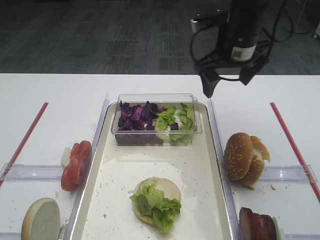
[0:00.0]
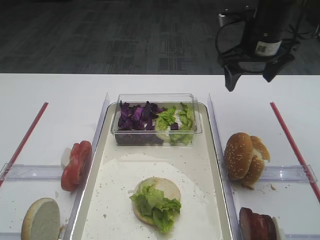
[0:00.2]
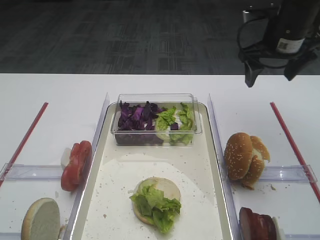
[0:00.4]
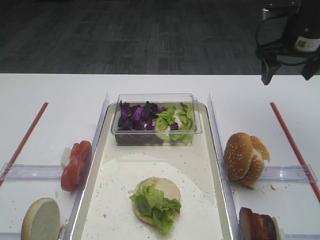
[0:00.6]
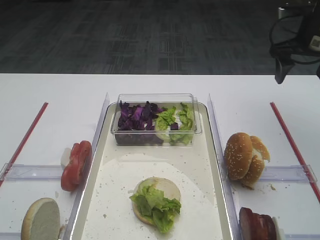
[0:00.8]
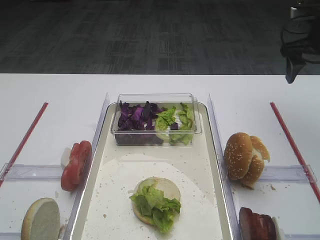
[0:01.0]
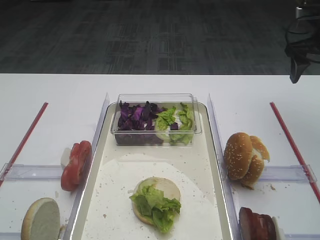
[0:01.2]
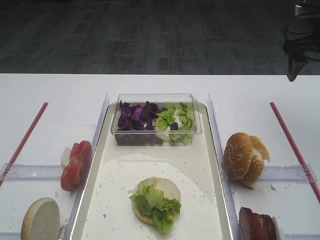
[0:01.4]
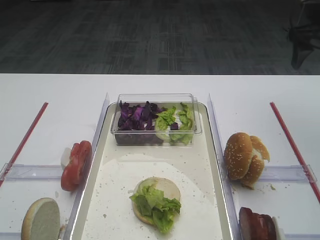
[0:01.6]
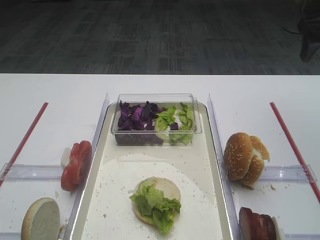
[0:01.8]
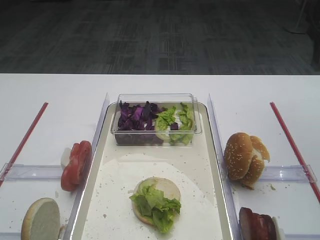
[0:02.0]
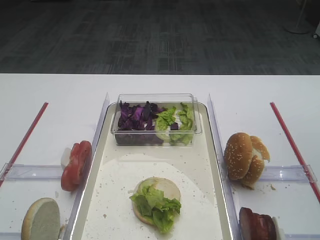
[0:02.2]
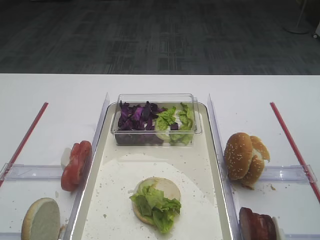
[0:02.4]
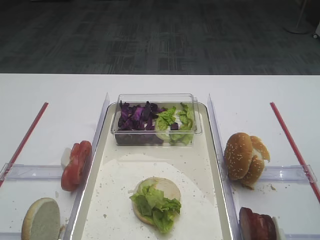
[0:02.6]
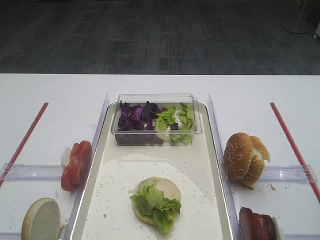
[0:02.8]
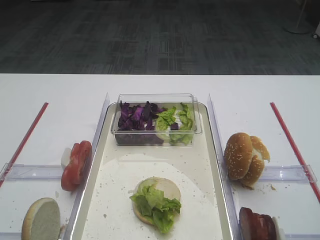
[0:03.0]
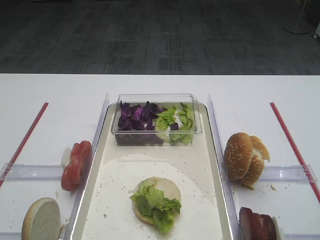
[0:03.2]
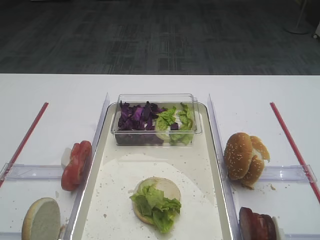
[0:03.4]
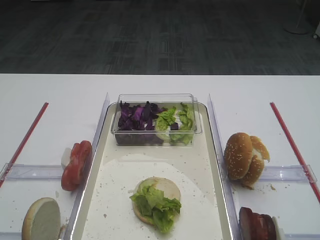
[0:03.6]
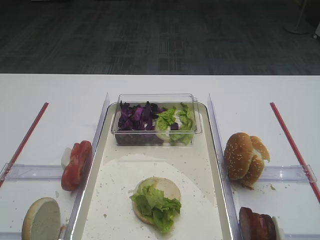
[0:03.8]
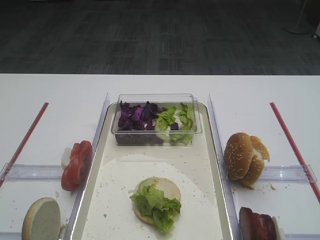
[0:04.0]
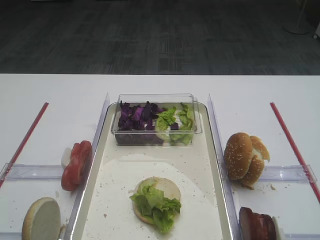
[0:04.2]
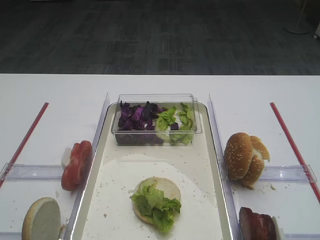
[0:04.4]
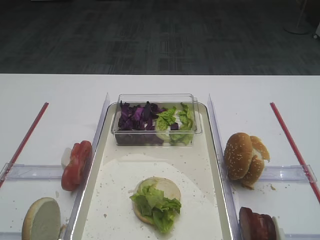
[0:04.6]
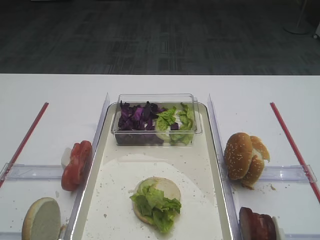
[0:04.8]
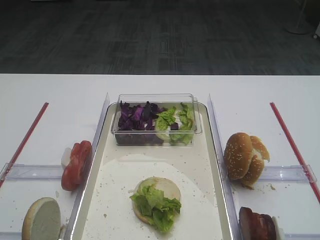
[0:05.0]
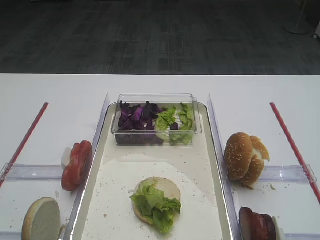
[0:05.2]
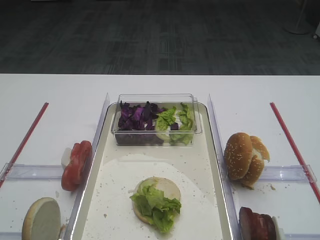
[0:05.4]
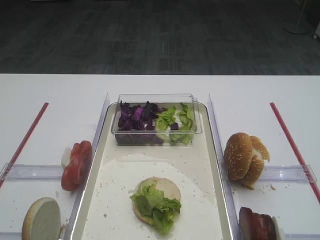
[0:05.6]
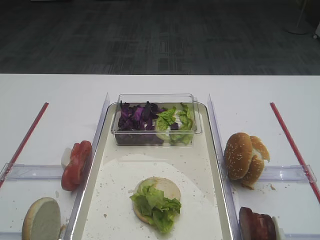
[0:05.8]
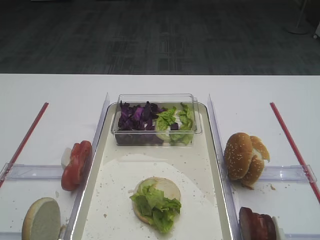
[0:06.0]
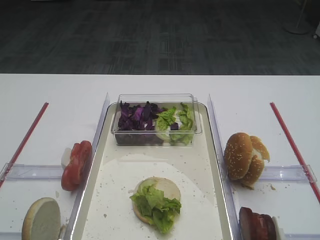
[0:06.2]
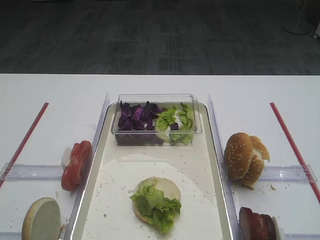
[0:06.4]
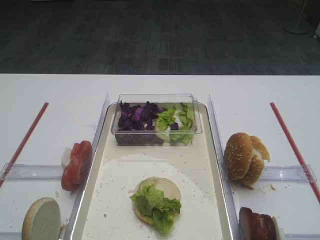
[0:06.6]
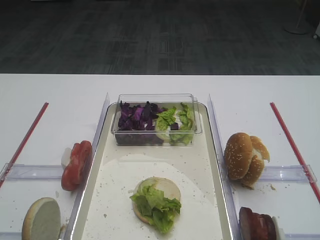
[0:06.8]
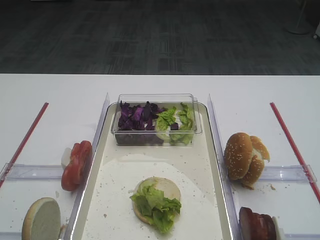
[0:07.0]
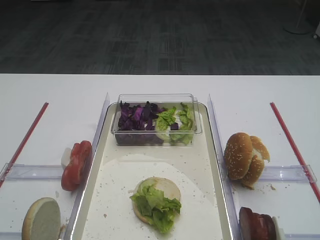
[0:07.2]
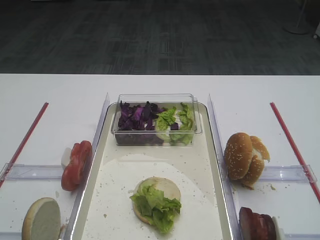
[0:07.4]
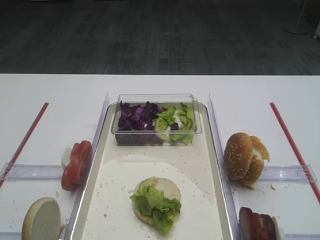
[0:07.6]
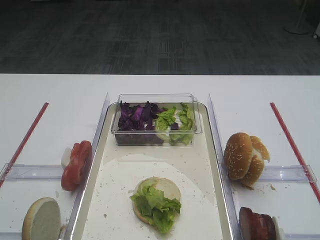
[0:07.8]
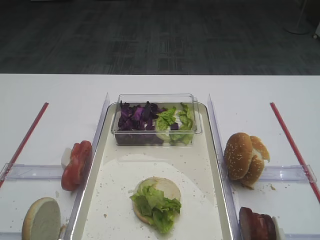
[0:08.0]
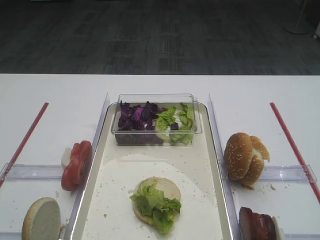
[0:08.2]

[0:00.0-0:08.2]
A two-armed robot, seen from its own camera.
0:00.0 to 0:01.6: The right gripper travels to the right by about 20 cm.
0:01.6 to 0:03.2: The right gripper goes approximately 35 cm backward.
0:05.0 to 0:08.2: Both grippers stay about where they are.
